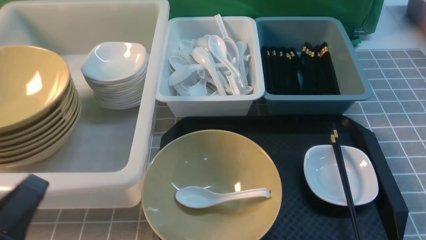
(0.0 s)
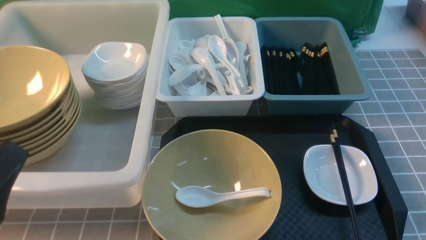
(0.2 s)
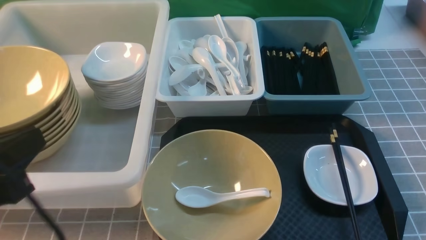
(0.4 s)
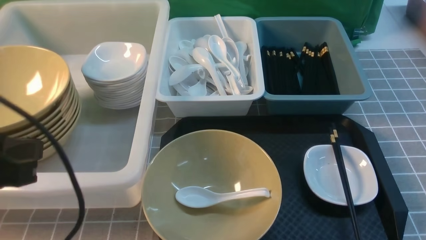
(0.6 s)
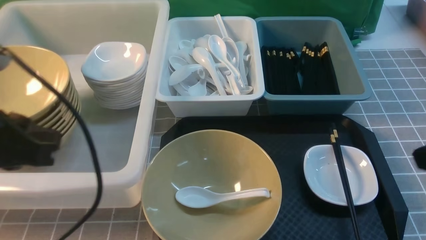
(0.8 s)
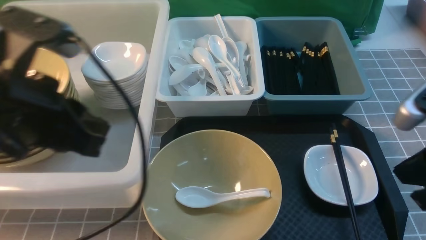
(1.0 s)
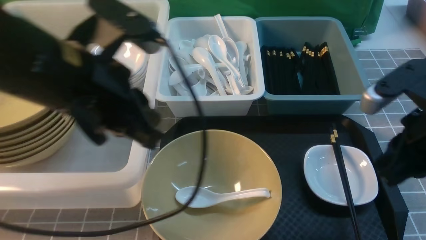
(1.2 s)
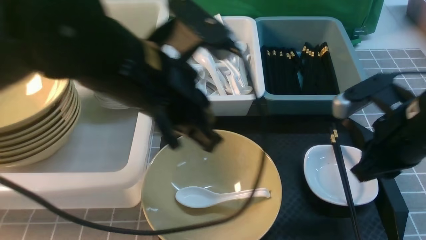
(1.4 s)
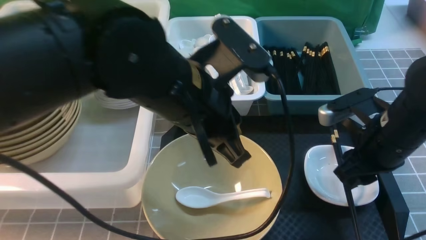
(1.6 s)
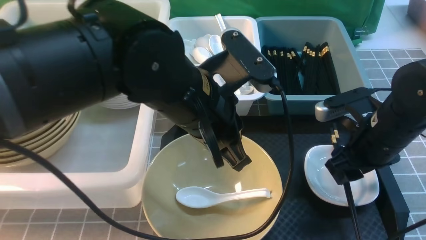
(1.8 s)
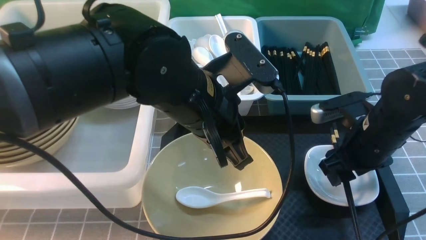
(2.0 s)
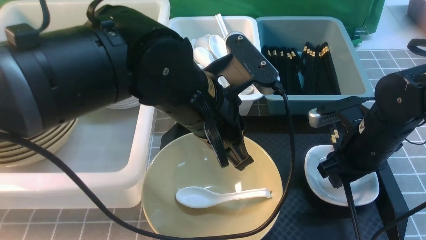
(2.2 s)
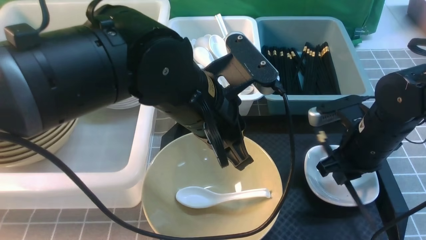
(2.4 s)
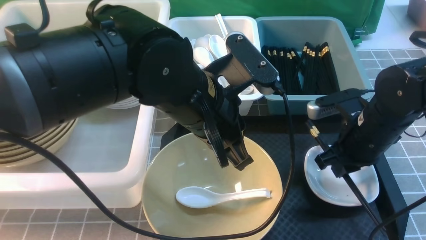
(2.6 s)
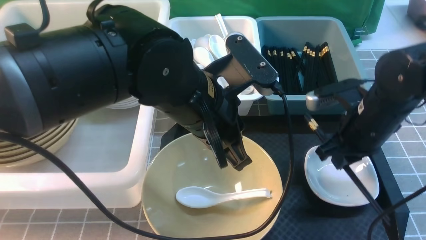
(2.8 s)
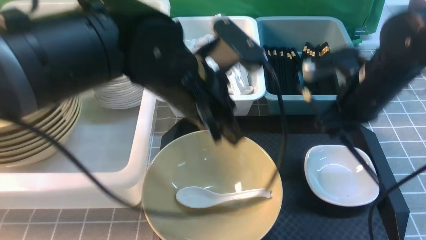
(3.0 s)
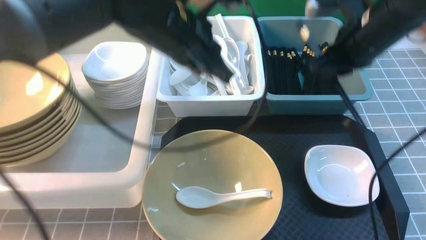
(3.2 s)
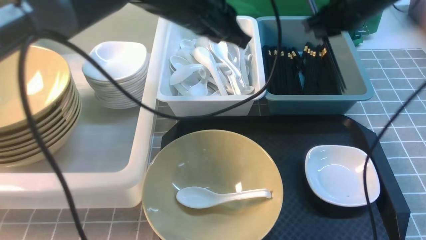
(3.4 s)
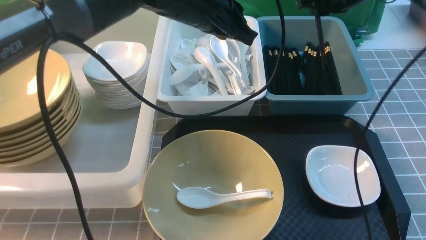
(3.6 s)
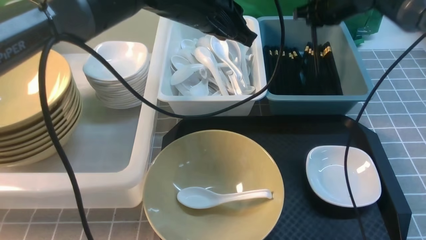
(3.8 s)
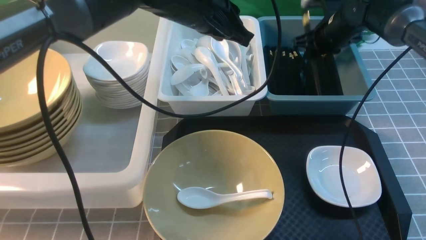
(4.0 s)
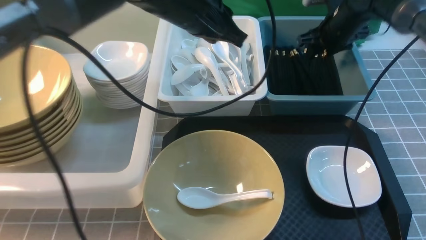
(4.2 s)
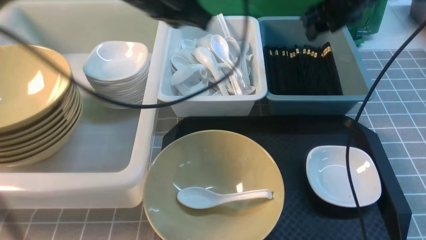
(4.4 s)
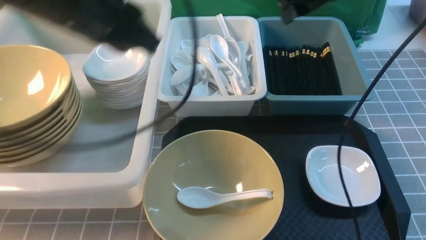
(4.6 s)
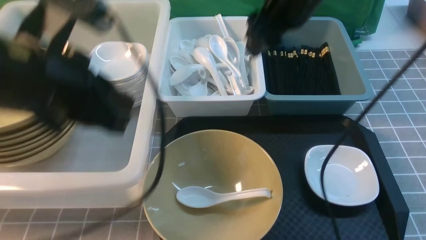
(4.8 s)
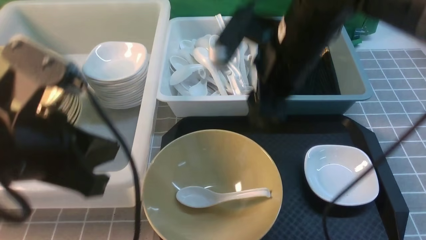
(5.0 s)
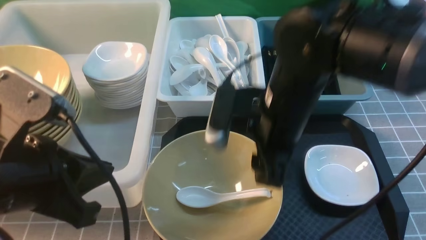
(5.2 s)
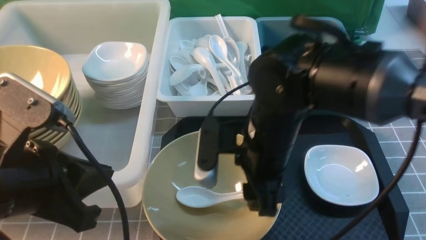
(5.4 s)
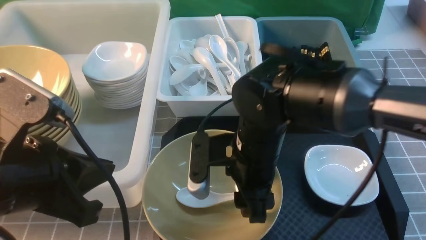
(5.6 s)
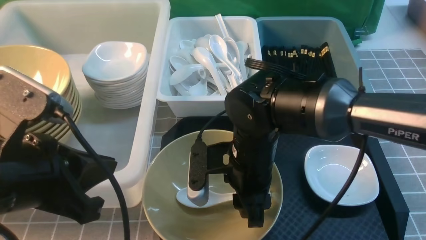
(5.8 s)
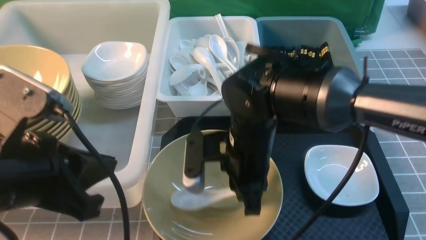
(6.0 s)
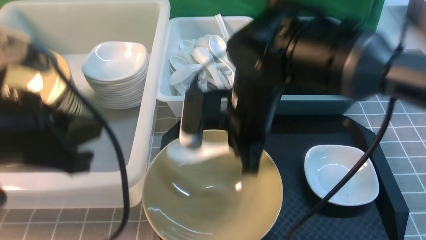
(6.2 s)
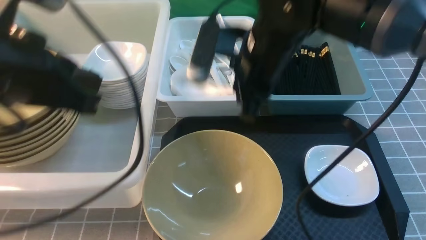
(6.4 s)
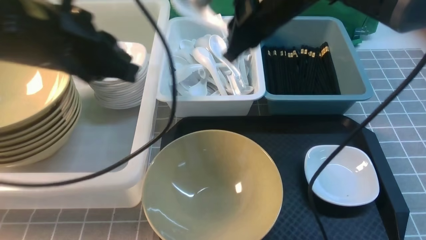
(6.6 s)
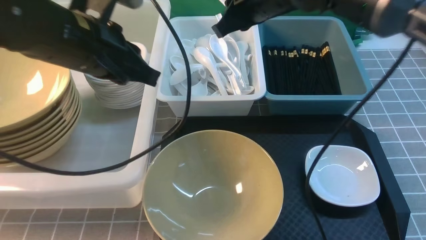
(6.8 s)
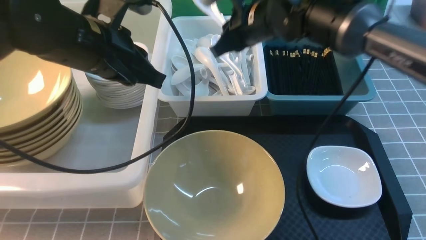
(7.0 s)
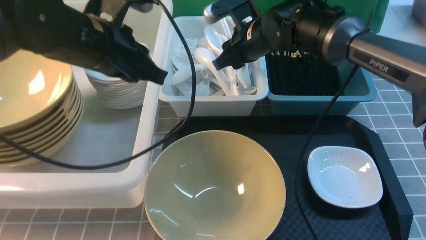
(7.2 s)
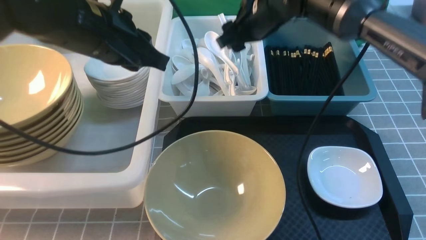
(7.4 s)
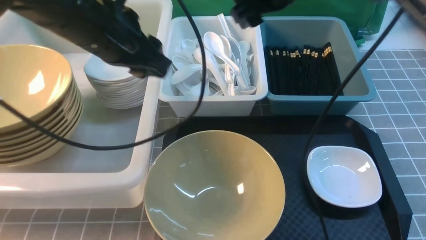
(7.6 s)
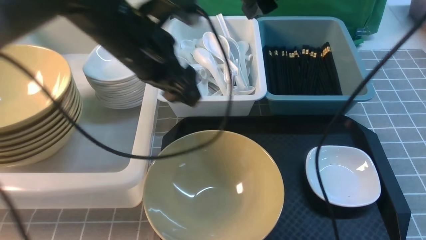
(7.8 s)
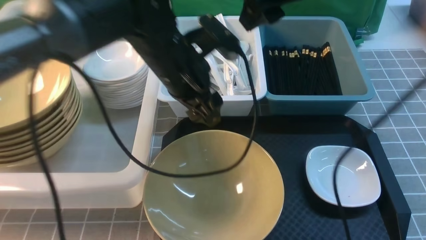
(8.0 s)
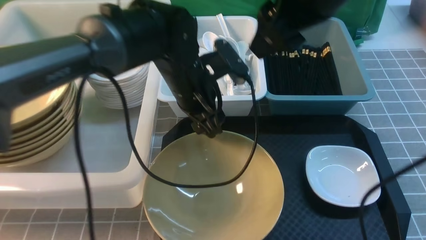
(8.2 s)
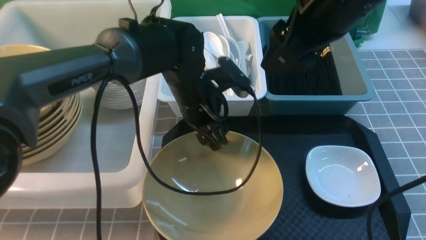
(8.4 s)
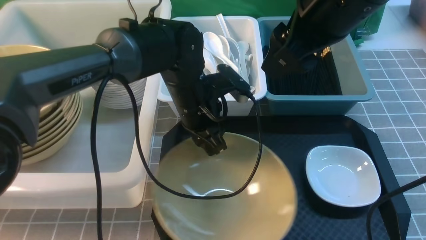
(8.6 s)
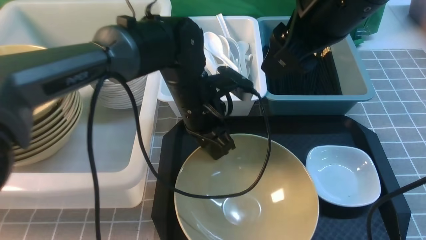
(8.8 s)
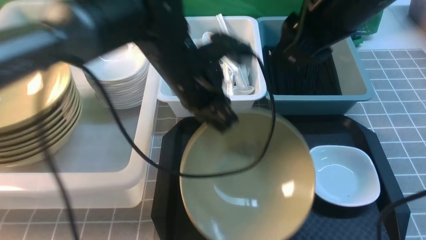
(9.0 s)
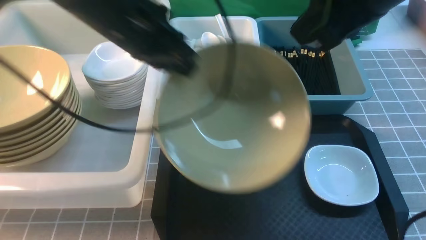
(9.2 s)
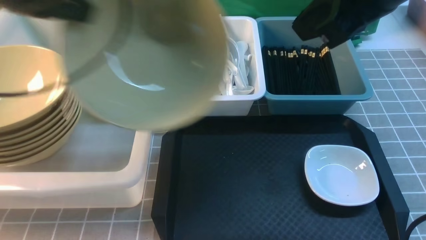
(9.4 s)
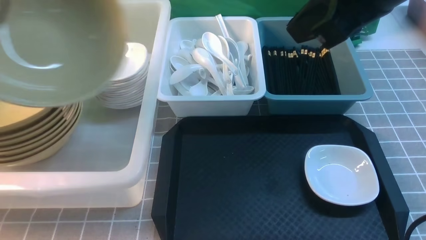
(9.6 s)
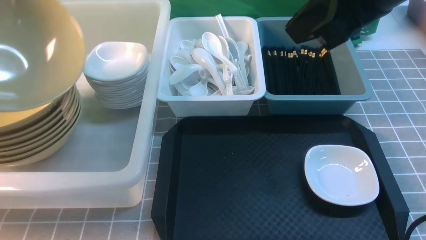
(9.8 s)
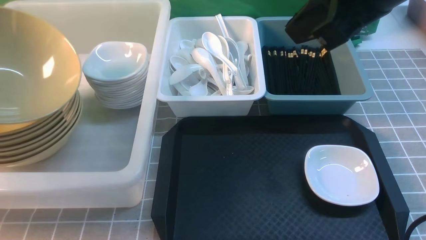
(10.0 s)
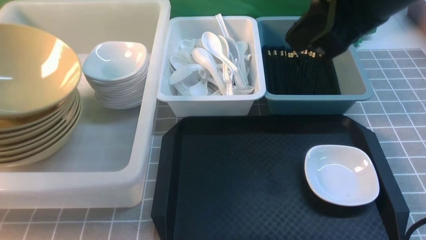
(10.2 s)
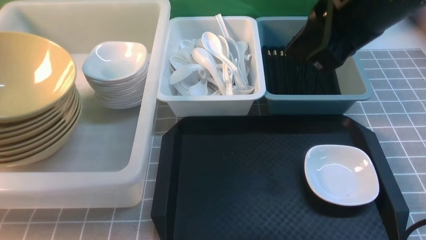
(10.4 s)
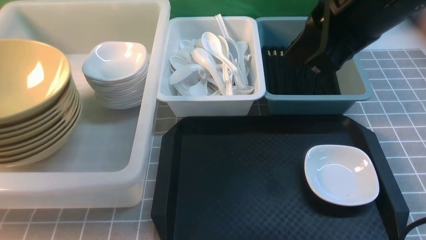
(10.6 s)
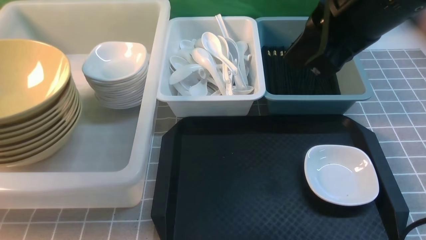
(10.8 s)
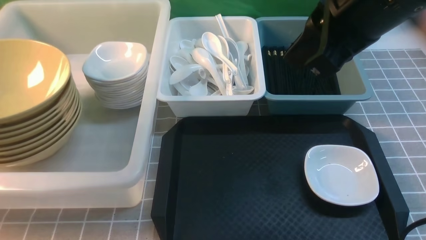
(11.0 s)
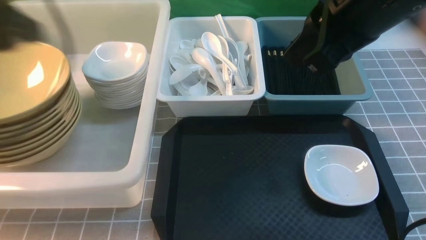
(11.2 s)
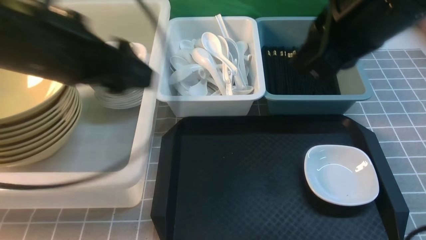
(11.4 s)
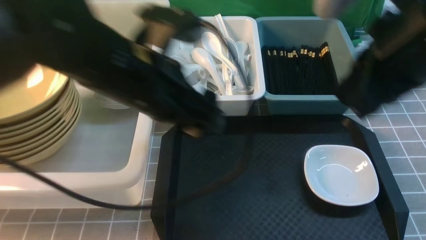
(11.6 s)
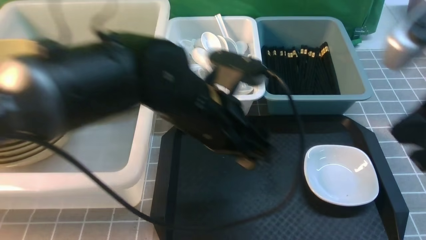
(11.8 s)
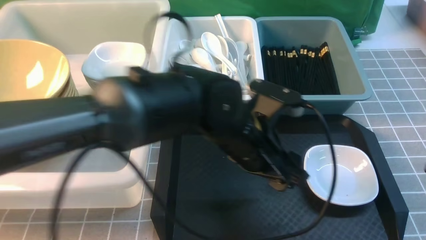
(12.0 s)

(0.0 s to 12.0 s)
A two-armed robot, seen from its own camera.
Task of the whole recording: on grey table put chopsticks spoon bowls plates into blue grey white boxes.
Step, 0.0 s - 2.6 s: use the right arm to grab the chopsticks.
Step, 2.8 s - 4.0 s: use the right arm to put the chopsticks into the small storage box on the right.
Step, 4.2 s - 6.2 s: use the right arm to grab the soup spoon in the middle.
Step, 6.4 s - 7.4 s: use the right arm to put the soup spoon into the small storage box in the middle.
Step, 7.6 s - 8.8 s: use the left arm to grab the yellow noodle bowl on the left.
Step, 9.0 s - 10.6 s: use the left arm to put the noodle bowl into the large storage box on the left.
0.0 s - 1.6 s: The left gripper travels to the right, forward and upward by roughly 30 cm. Meanwhile the right gripper shifts roughly 20 cm forward.
1.6 s - 3.0 s: The grippers both shift forward by about 5 cm. The right gripper closes.
3.0 s - 4.4 s: The left gripper goes about 10 cm to the left and upward. The right gripper shifts some 15 cm forward and upward, and opens.
4.4 s - 6.0 s: The left gripper is displaced backward and to the left by approximately 20 cm. The right gripper heads backward, to the left and downward, covering about 25 cm, and closes its fingers.
6.0 s - 7.6 s: The right gripper moves forward, upward and to the right, roughly 20 cm, and opens up, while the left gripper is displaced forward by some 15 cm, and opens its fingers.
7.6 s - 9.0 s: The right gripper travels backward by some 15 cm, and closes its fingers. The left gripper travels to the right by approximately 5 cm, reaches some 10 cm downward, then returns, and closes its fingers.
9.0 s - 10.4 s: The right gripper closes its fingers. The left gripper travels to the left by roughly 35 cm, and opens its fingers.
10.4 s - 12.0 s: The left gripper shifts approximately 40 cm to the right; the right gripper shifts some 15 cm backward, to the right and downward.

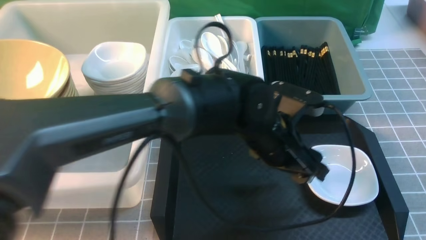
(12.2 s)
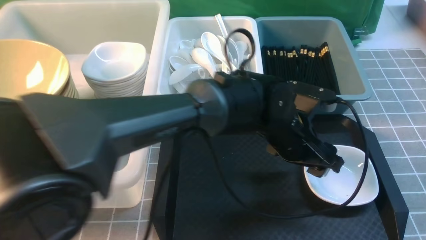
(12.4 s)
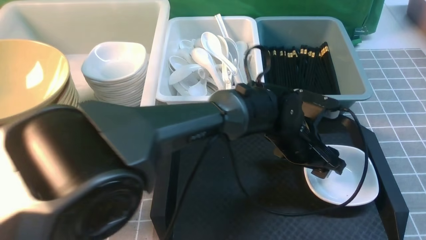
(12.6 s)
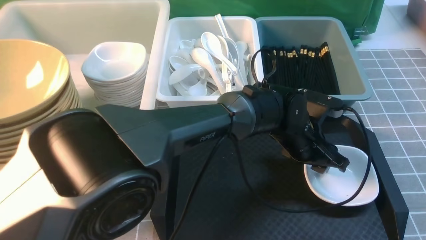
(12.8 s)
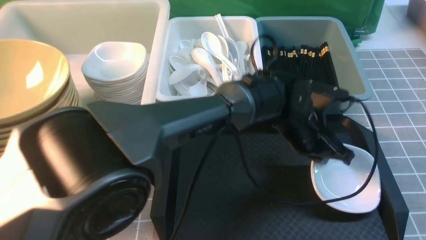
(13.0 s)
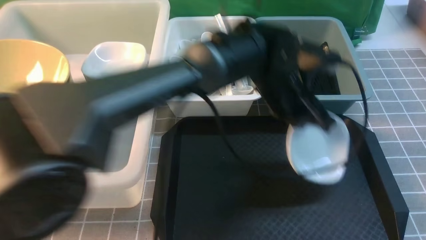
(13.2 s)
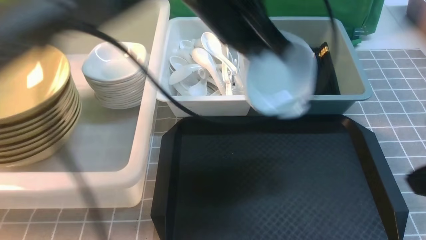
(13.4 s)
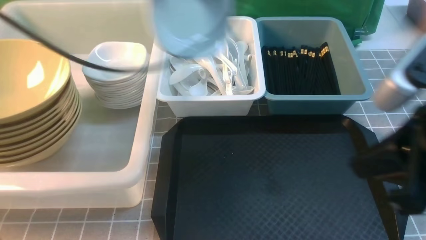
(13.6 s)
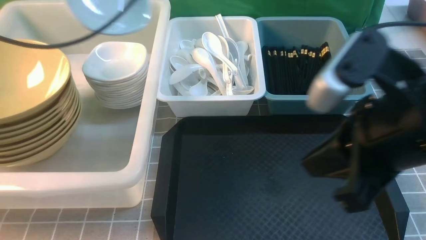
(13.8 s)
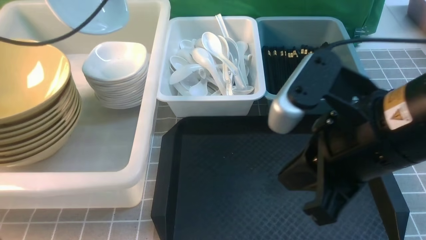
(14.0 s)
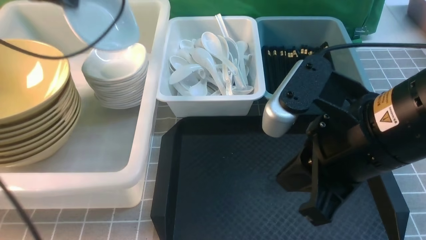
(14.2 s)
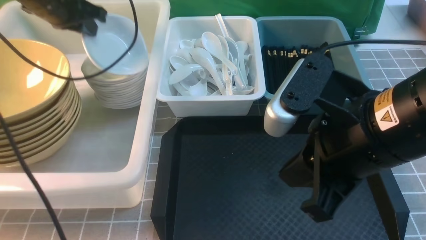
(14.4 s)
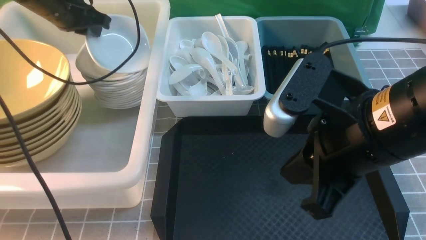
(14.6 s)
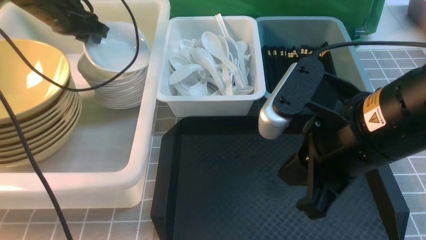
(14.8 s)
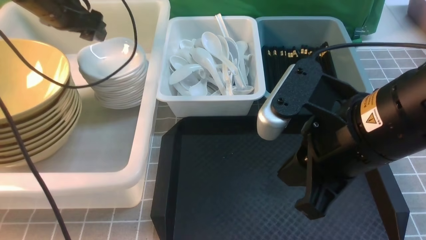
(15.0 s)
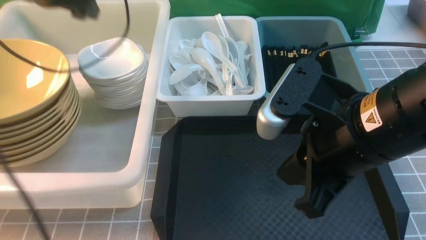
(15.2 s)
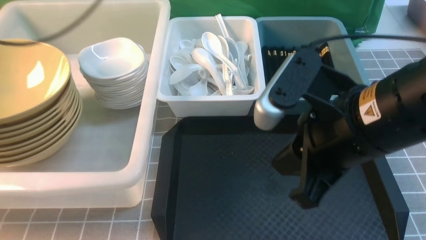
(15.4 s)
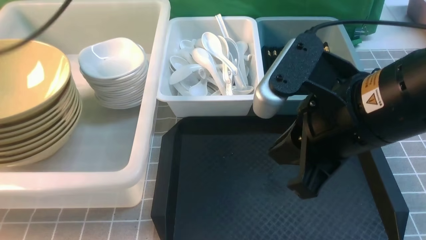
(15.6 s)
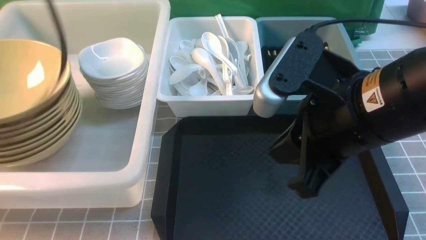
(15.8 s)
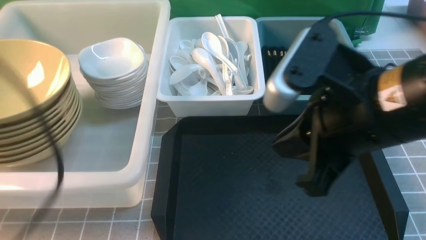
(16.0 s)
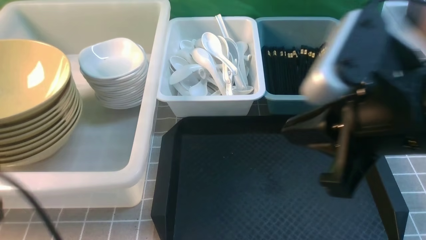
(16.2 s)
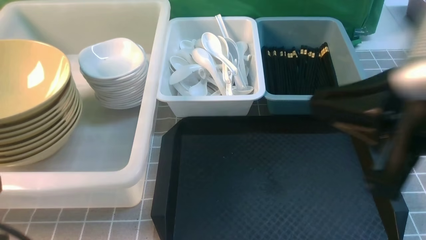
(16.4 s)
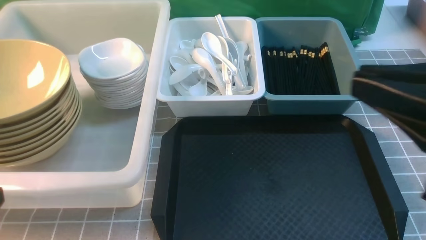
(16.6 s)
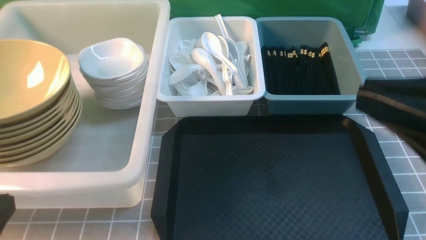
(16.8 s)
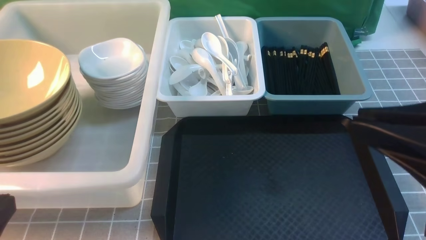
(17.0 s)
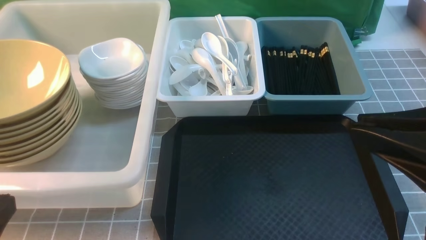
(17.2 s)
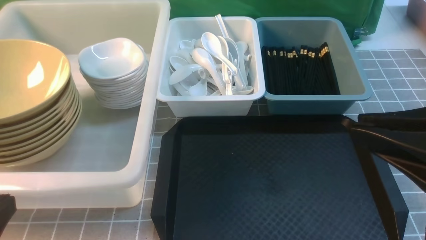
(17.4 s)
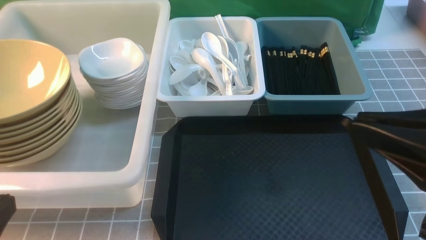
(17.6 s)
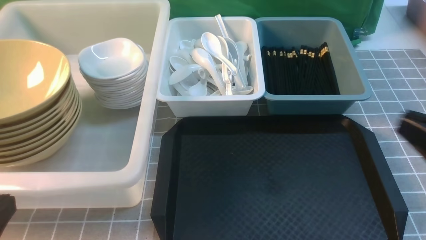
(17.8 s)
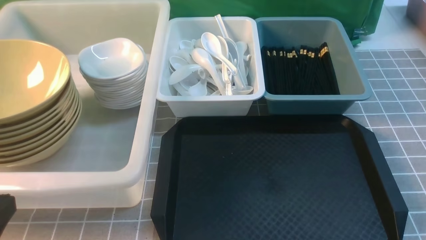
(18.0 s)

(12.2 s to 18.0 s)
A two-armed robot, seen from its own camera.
Task of the whole recording: on grey table put chopsticks spoon bowls plates into blue grey white boxes.
Step, 13.2 s - 15.0 s: use the left arm to put the plate into the large storage box on the left.
12.2 s - 13.6 s: The left gripper heads upward and to the left, covering some 30 cm, and closes; the right gripper goes roughly 5 cm to the left.
13.6 s - 15.0 s: The right gripper shifts about 5 cm to the left; the left gripper travels to the left, forward and downward by about 20 cm, and opens up.
15.0 s - 16.6 s: The right gripper shifts some 10 cm to the right, backward and upward; the left gripper travels backward by approximately 40 cm, and closes up.
16.6 s - 18.0 s: The right gripper is displaced downward and to the right by approximately 15 cm.
